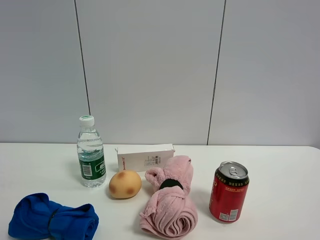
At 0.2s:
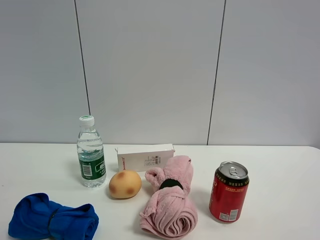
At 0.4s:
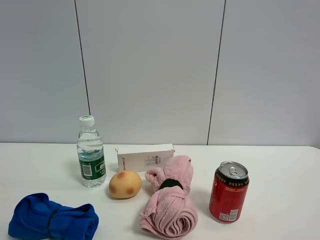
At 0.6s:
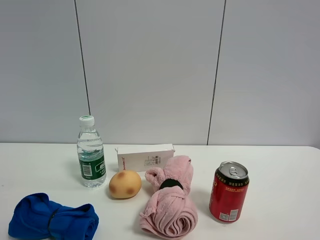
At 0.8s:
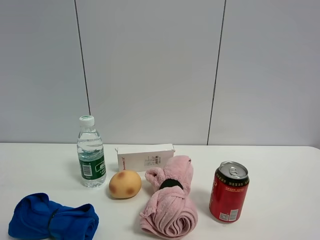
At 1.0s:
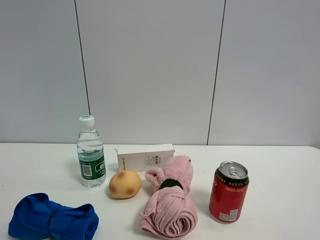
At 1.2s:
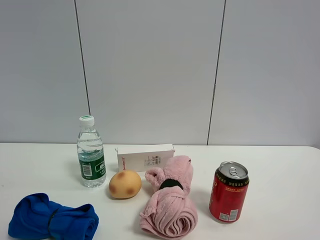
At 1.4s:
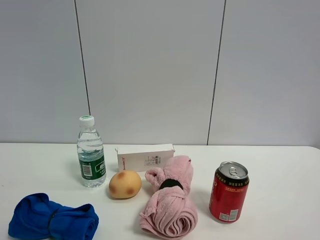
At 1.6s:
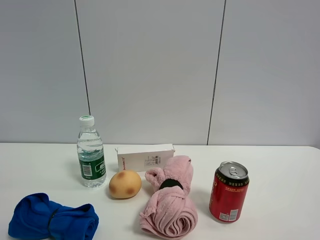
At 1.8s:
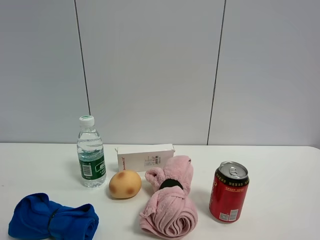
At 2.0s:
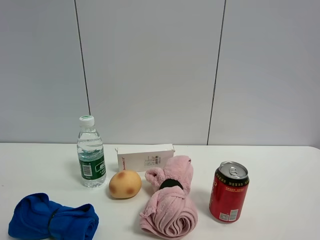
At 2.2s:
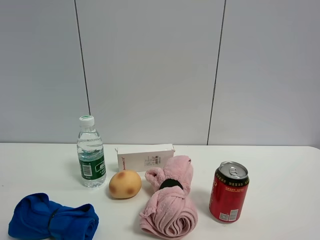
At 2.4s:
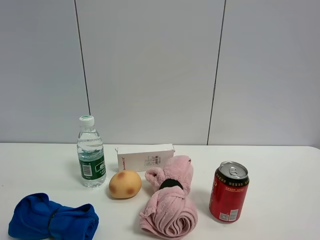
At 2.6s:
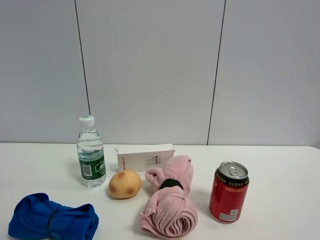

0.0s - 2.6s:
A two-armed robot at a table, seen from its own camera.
Task of the whole recording: the gripper move the object.
1.2s - 2.6s: The two grippers keep their place.
